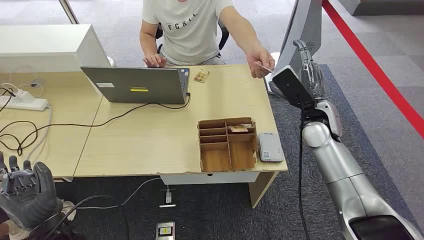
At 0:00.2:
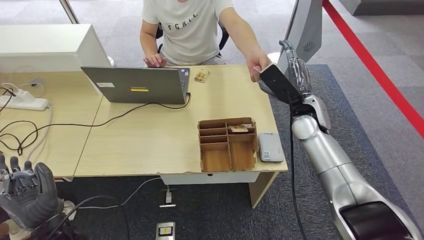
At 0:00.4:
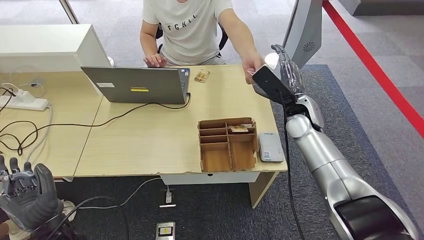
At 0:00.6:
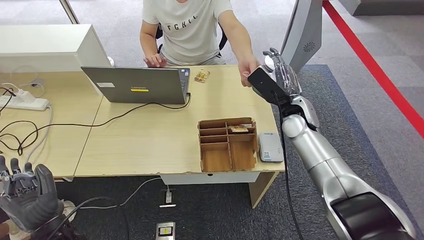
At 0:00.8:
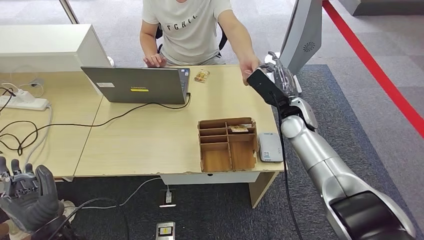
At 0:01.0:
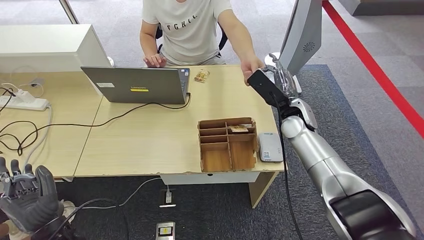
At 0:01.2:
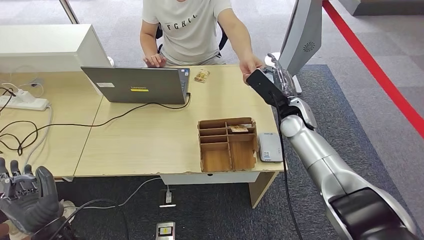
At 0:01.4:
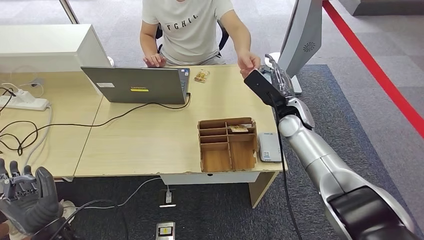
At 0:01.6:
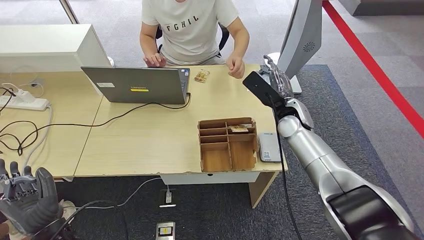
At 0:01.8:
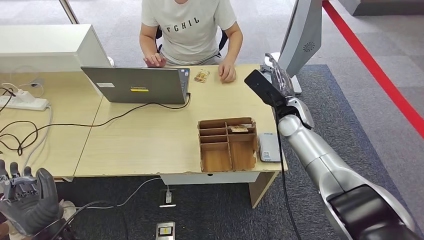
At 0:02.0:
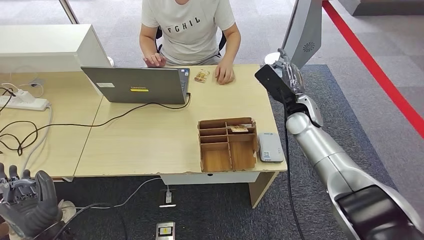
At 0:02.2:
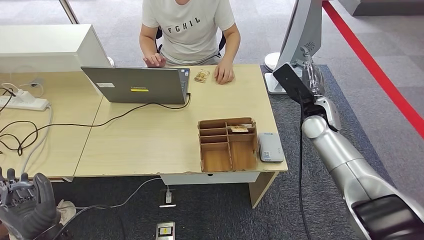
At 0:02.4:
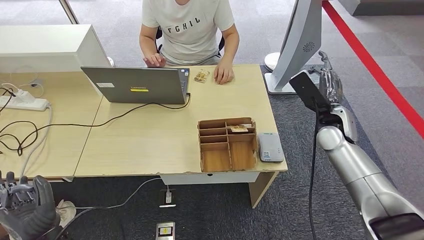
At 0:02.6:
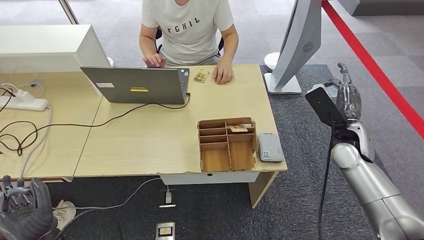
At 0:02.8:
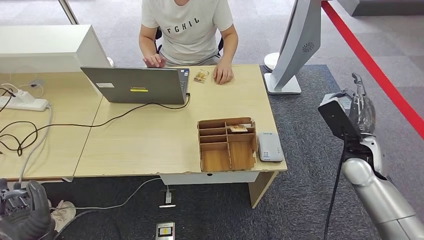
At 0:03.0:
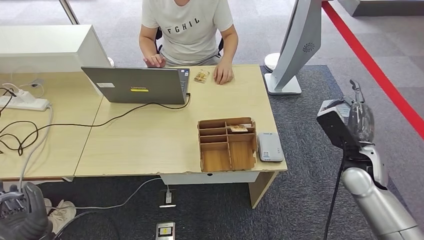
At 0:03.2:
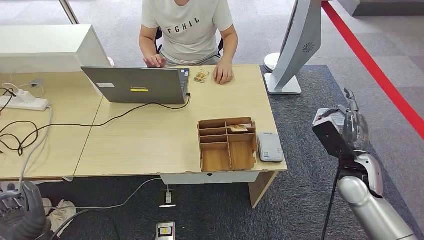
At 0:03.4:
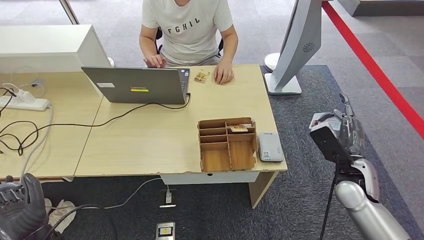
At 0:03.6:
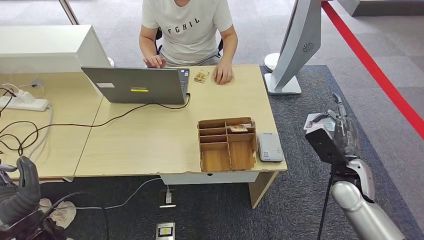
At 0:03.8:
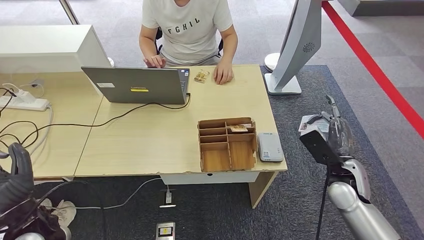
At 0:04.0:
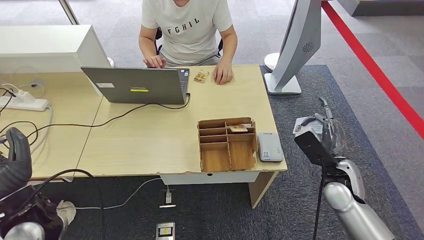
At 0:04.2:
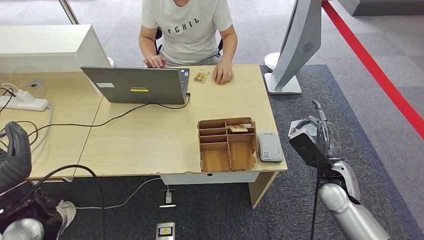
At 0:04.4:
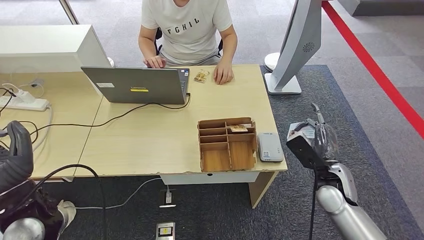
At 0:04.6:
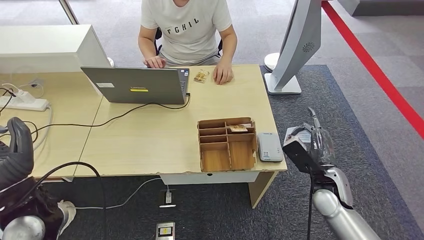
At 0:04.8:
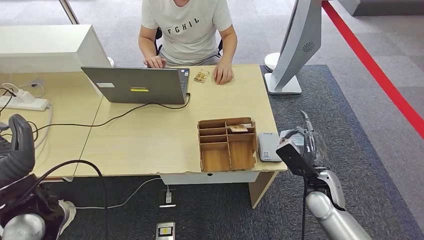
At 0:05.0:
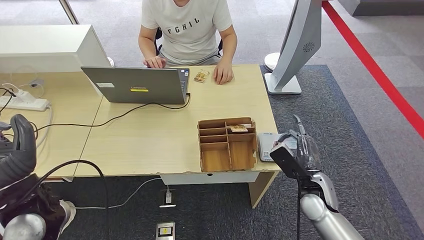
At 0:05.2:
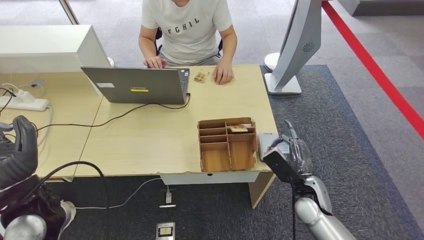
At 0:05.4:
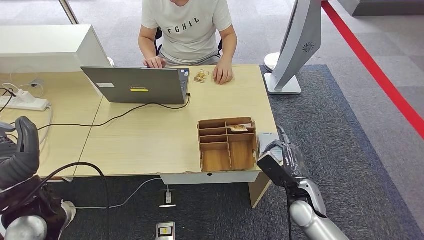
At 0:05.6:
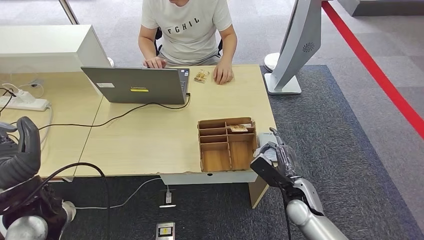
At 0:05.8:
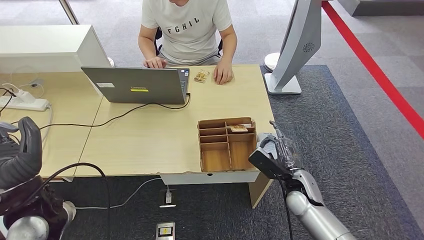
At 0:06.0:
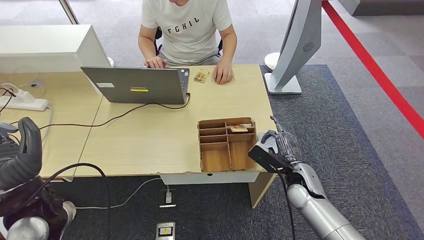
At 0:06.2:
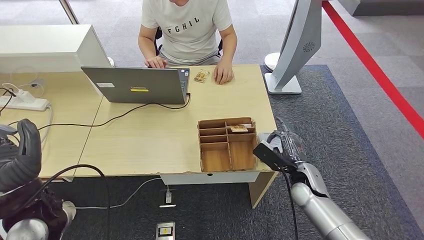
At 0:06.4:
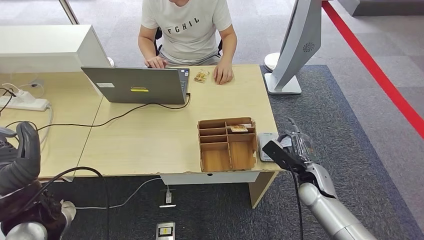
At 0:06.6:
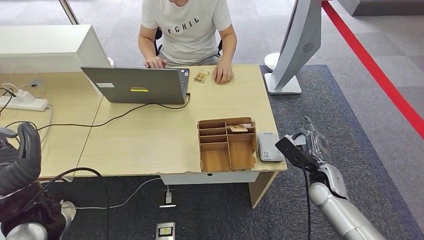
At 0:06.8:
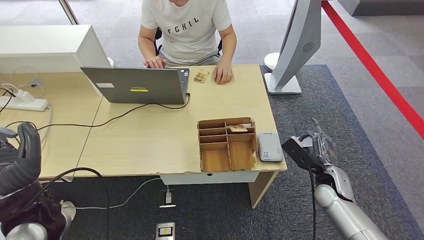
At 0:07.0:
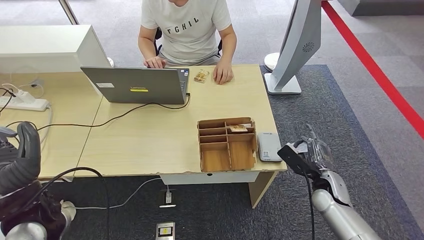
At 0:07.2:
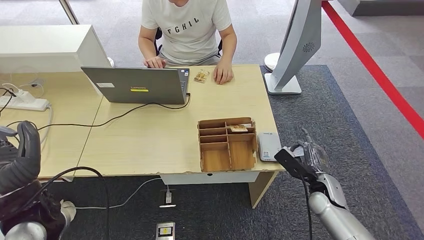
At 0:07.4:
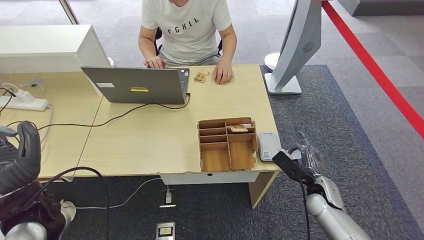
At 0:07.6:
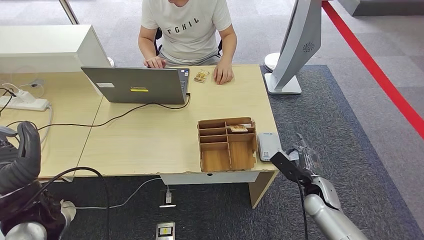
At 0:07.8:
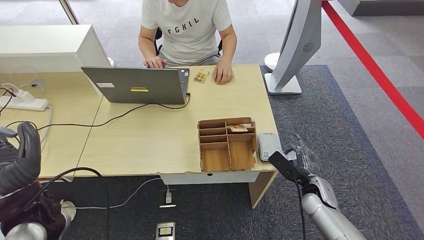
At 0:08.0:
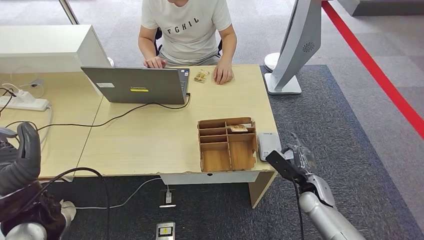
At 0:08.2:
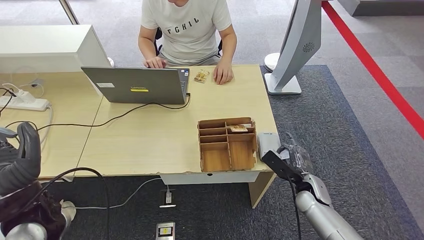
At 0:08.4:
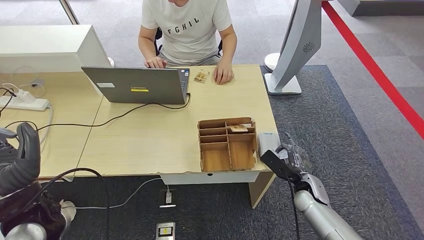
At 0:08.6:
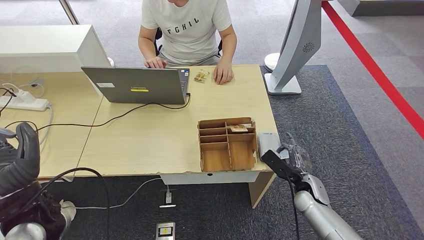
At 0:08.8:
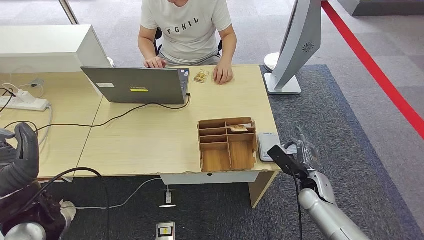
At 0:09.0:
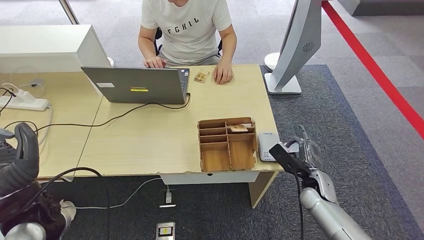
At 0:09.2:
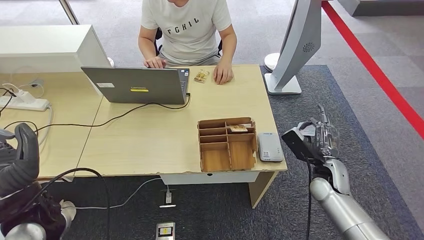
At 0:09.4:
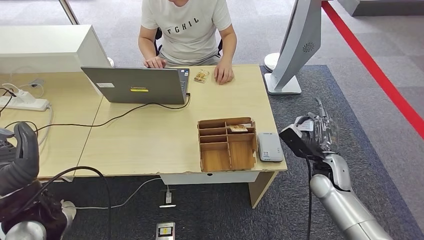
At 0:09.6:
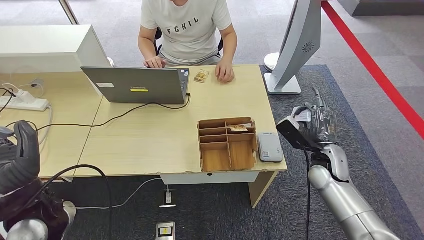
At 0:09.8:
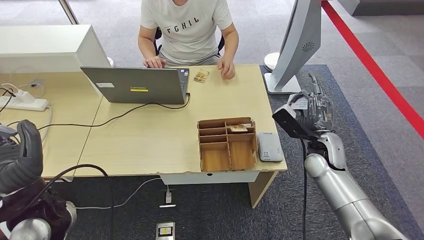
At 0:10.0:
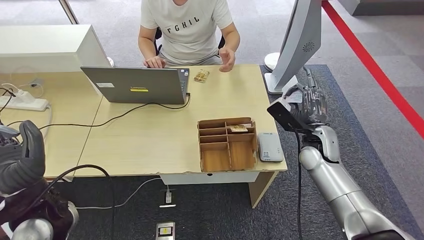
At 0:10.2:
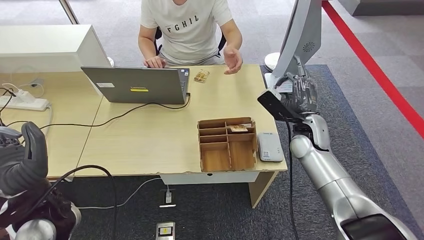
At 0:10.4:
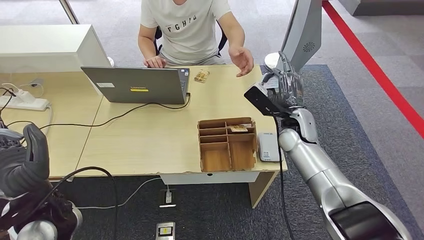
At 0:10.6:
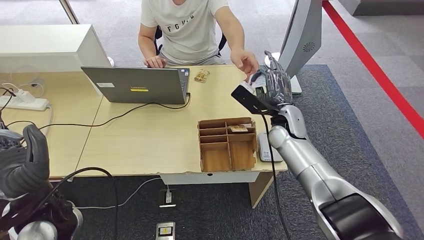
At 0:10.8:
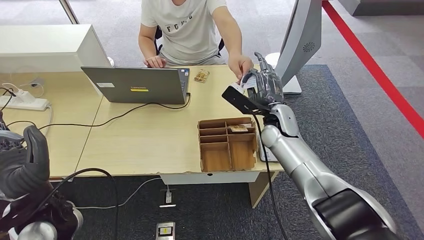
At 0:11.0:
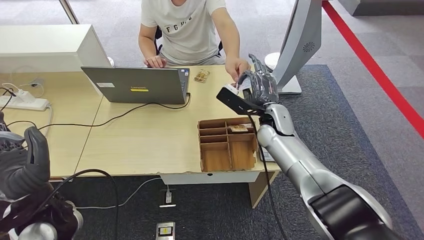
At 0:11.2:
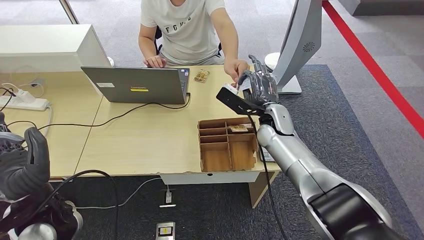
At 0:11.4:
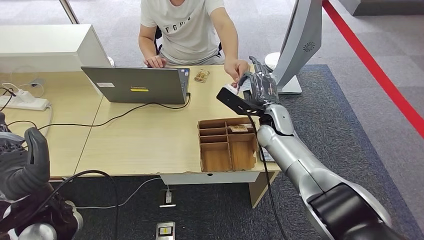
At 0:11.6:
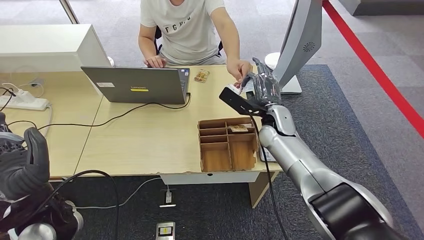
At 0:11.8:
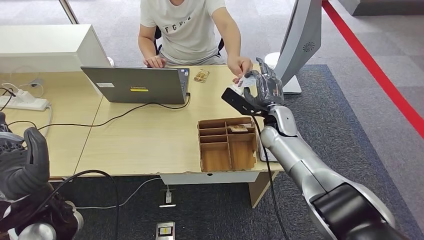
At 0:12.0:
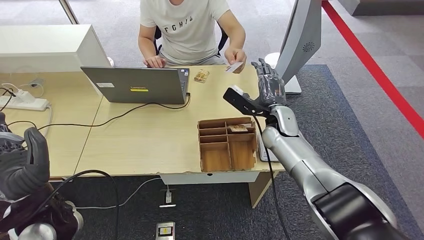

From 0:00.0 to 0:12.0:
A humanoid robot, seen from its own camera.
Step, from 0:00.0 to 0:02.2: Take the ID card from the person's hand.
Step, from 0:02.4 to 0:07.0: Place the ID card on the card reader.
From 0:01.6 to 0:03.0: The right hand moves backward and to the right, approximately 20 cm.
From 0:03.0 to 0:04.4: The left hand travels upward and forward by roughly 10 cm, while the right hand goes roughly 10 cm downward and to the left.
From 0:04.4 to 0:06.0: The right hand moves to the left, about 5 cm.
From 0:06.0 to 0:07.6: The right hand is displaced to the right by roughly 5 cm.
From 0:07.6 to 0:09.0: The hands make only small movements.
From 0:09.0 to 0:10.4: The right hand heads upward, forward and to the left, covering roughly 20 cm.

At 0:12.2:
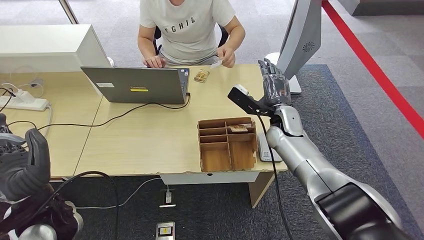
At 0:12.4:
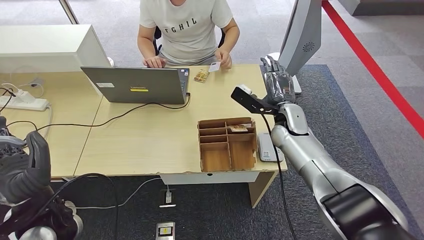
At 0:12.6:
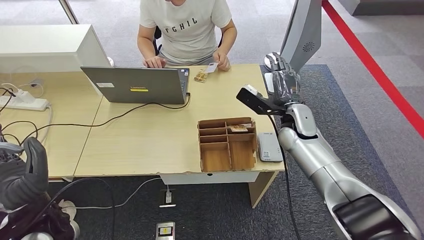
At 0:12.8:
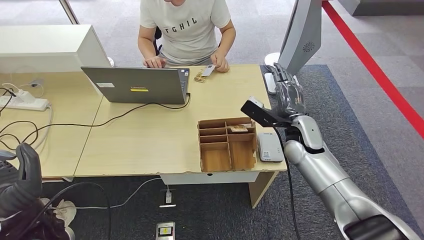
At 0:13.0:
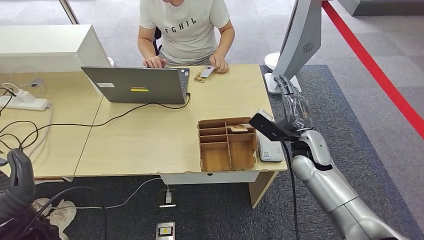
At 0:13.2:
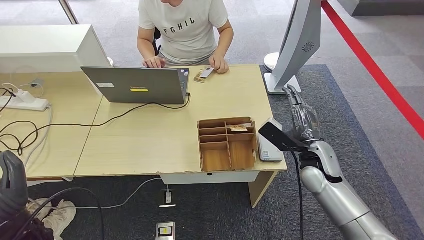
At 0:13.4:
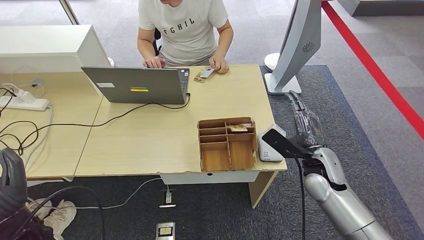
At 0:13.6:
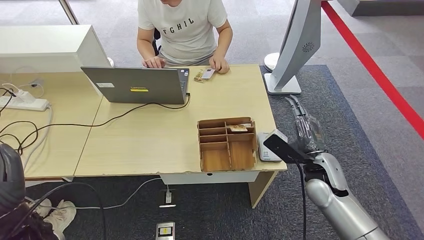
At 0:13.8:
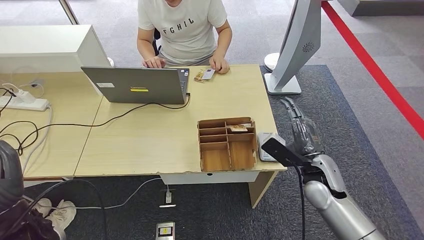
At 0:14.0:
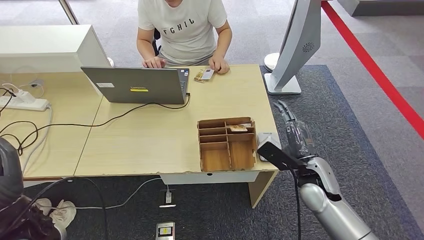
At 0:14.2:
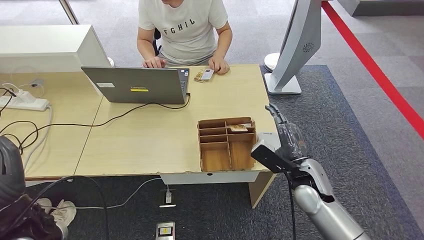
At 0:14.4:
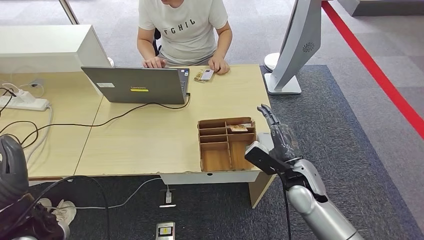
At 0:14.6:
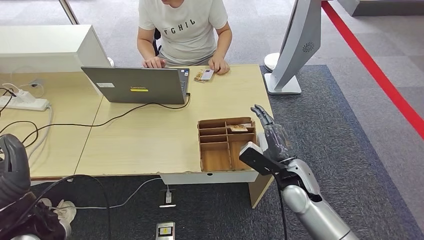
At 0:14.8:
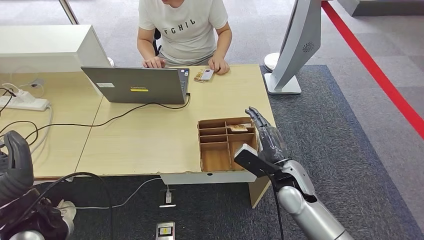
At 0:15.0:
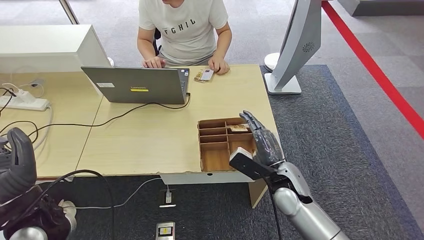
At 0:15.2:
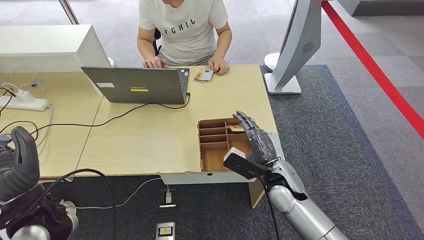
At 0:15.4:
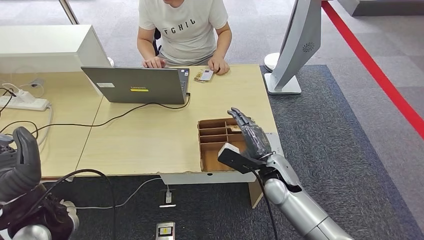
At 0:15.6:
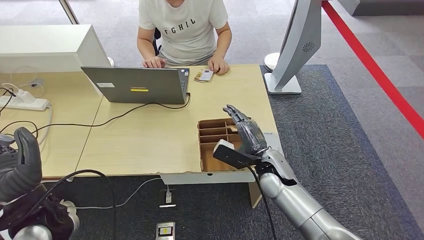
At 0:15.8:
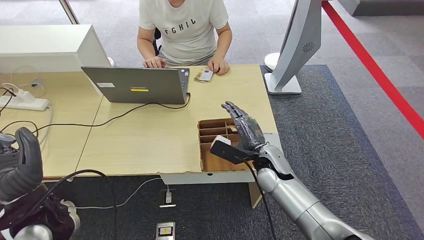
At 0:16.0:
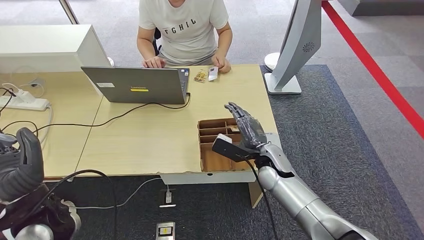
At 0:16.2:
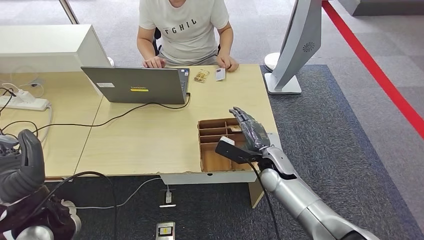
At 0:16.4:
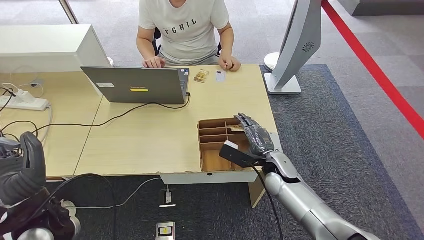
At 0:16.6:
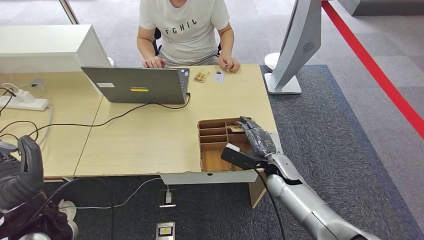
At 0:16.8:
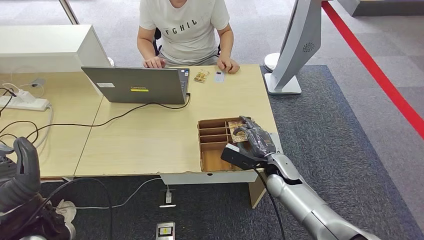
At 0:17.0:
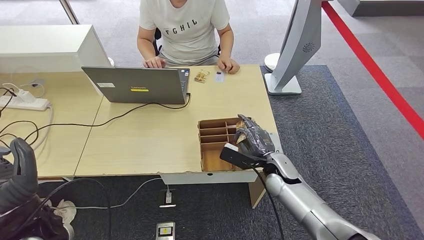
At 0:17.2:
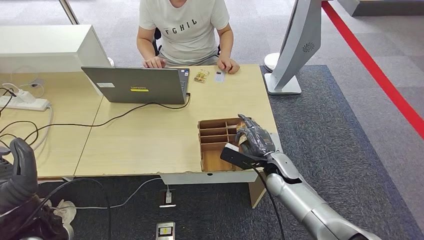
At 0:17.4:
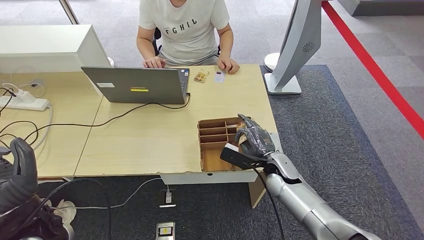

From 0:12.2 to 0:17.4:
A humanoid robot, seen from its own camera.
From 0:12.2 to 0:14.0: The right hand heads backward, covering some 15 cm.
From 0:14.0 to 0:15.6: The right hand heads to the left, covering about 10 cm.
From 0:15.6 to 0:17.4: The right hand changes place by roughly 5 cm.
